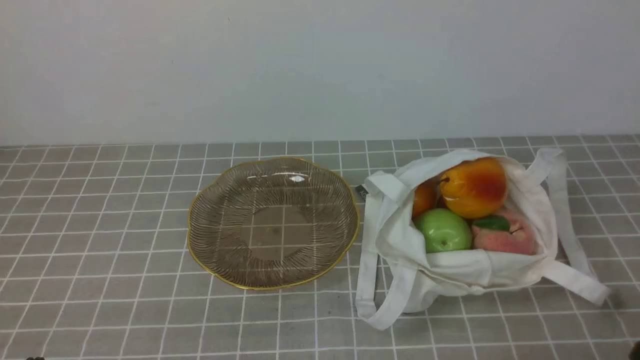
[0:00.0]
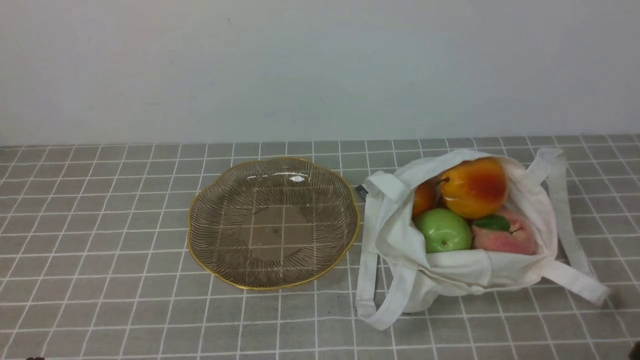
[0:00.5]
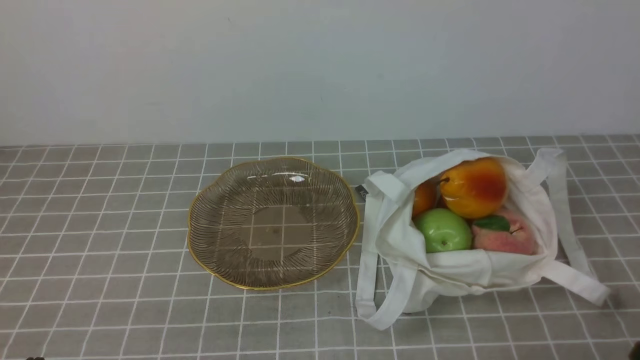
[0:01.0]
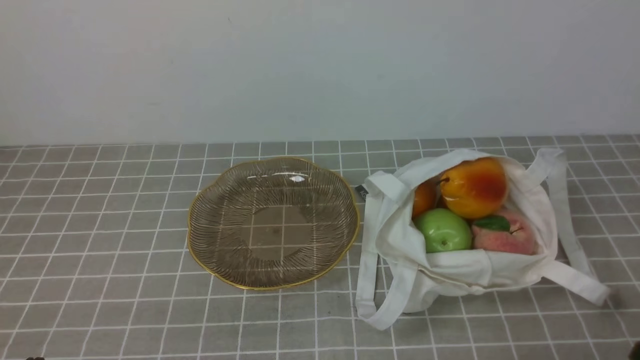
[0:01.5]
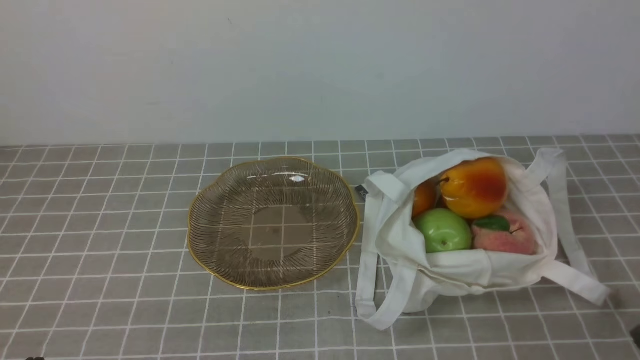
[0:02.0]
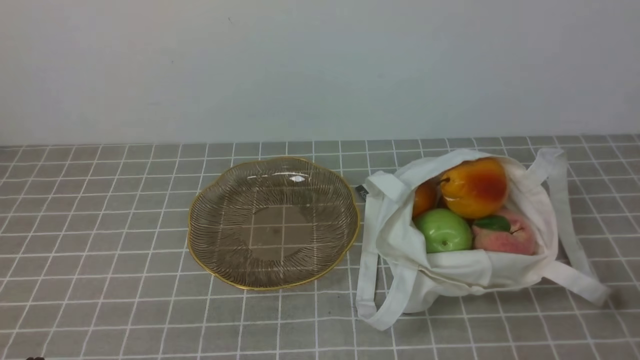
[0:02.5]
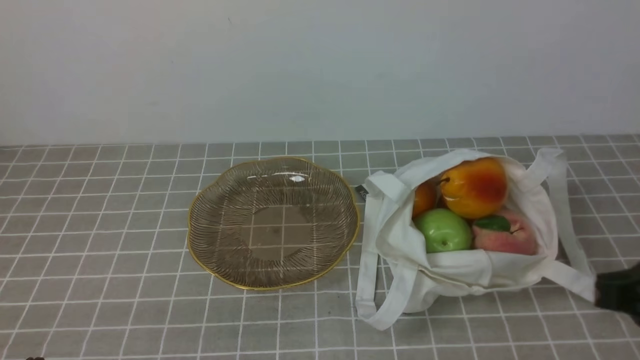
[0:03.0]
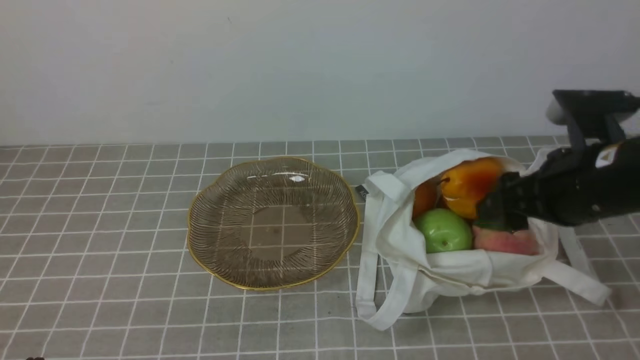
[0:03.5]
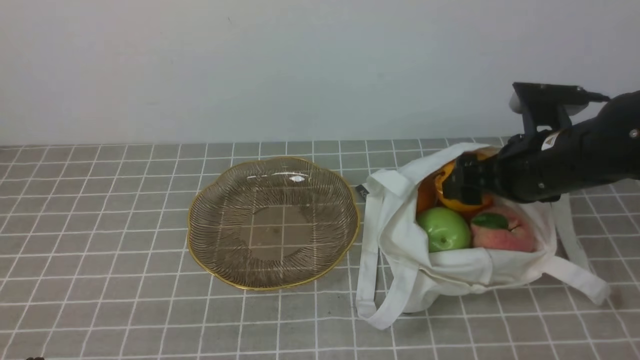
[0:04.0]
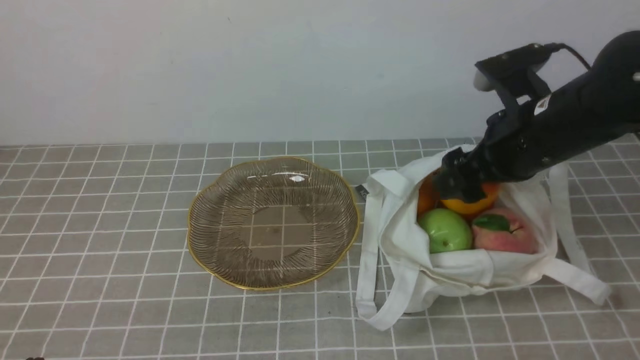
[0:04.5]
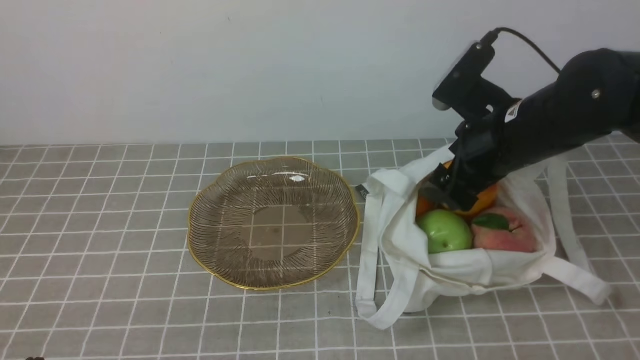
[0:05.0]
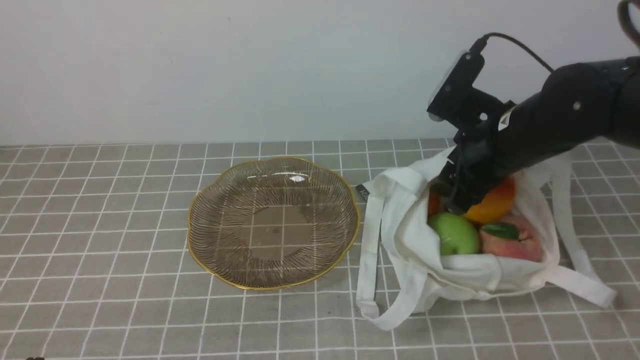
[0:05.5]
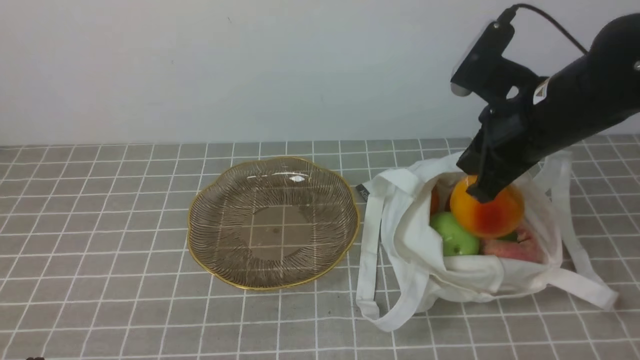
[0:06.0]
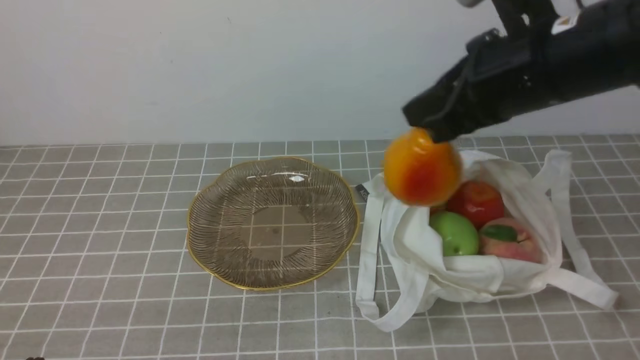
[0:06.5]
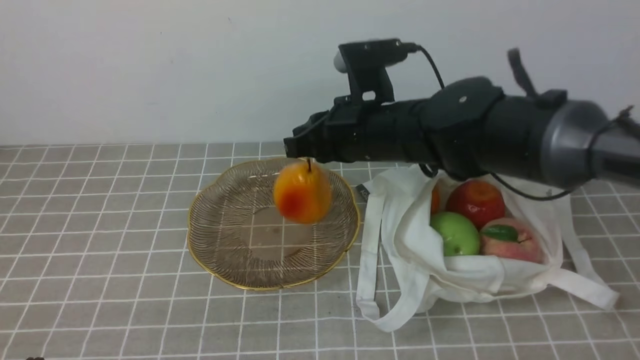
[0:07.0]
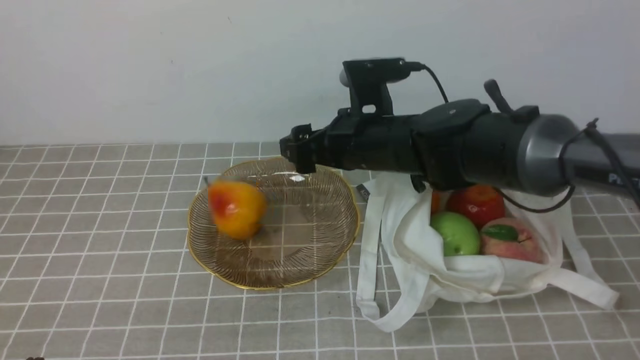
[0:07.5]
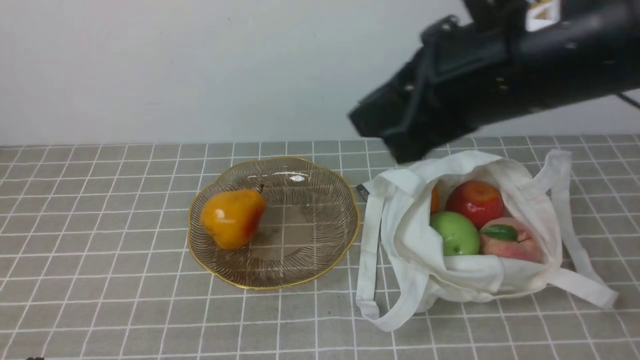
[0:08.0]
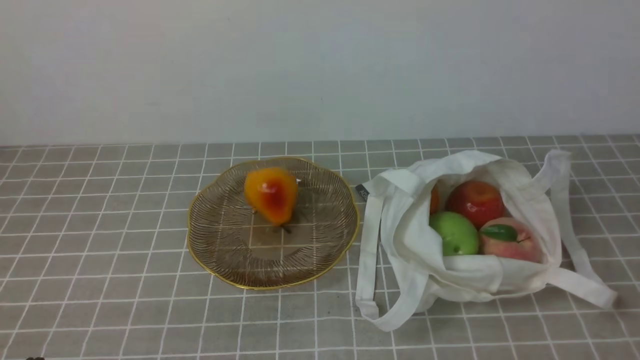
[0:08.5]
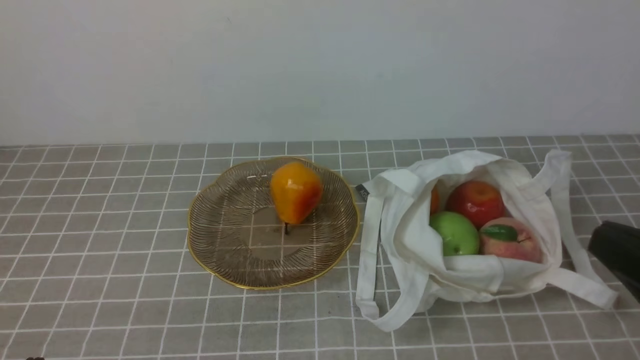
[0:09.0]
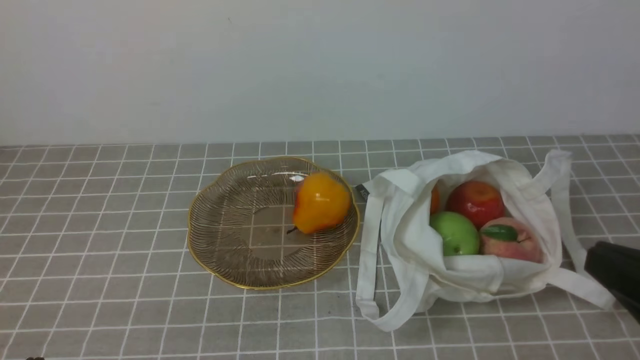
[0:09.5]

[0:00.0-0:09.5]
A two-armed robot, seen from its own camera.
Step, 0:00.0 to 0:06.0: use the right arm to grab a pear from the bag.
Step, 0:06.5 to 0:07.0: use the right arm to put the pear into the empty plate on the left.
0:02.0 to 0:04.0: The right gripper is displaced forward by approximately 25 cm, and opens.
0:04.0 to 0:05.5: The right gripper closes.
0:05.5 to 0:07.5: The right gripper is displaced to the left by about 15 cm, and opens its fingers.
0:07.5 to 0:09.5: The right gripper shifts roughly 35 cm backward and to the right, and closes up.

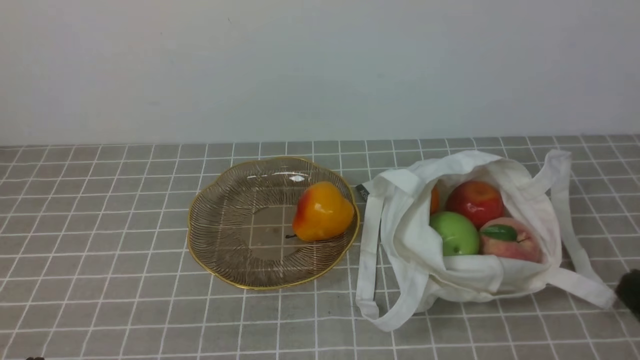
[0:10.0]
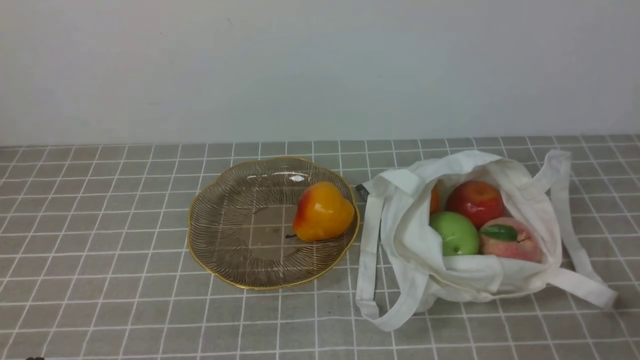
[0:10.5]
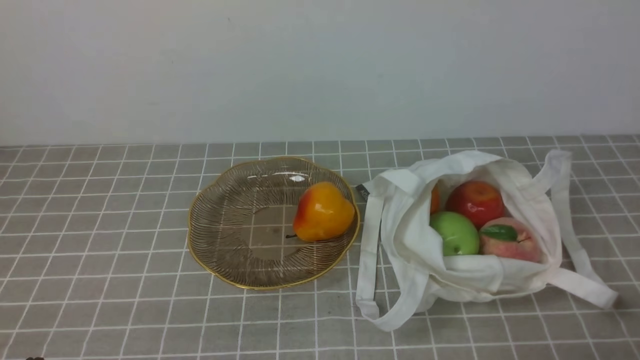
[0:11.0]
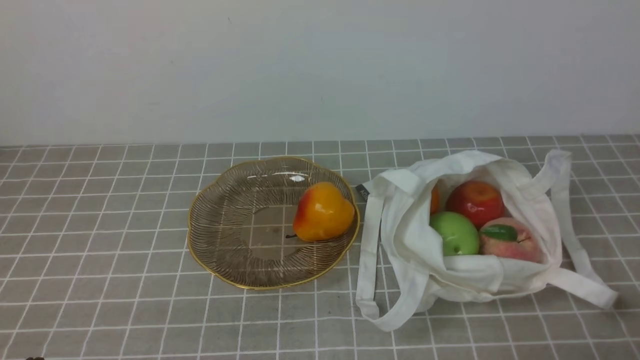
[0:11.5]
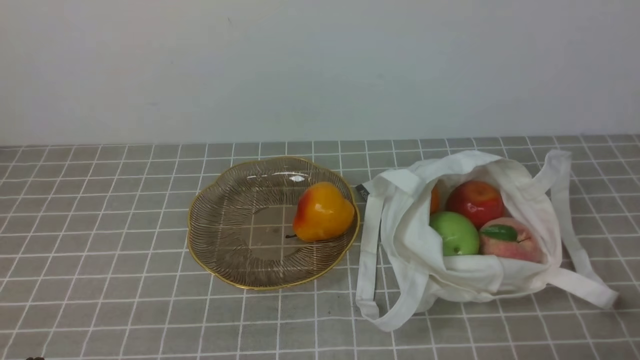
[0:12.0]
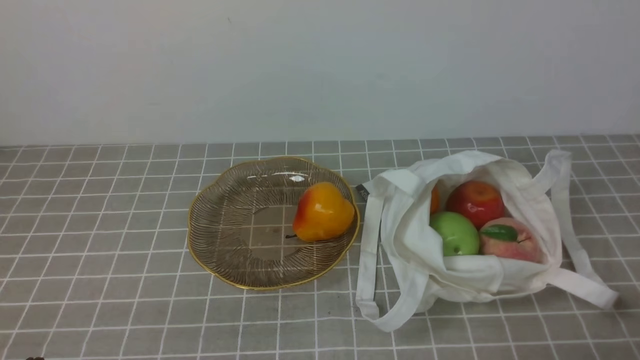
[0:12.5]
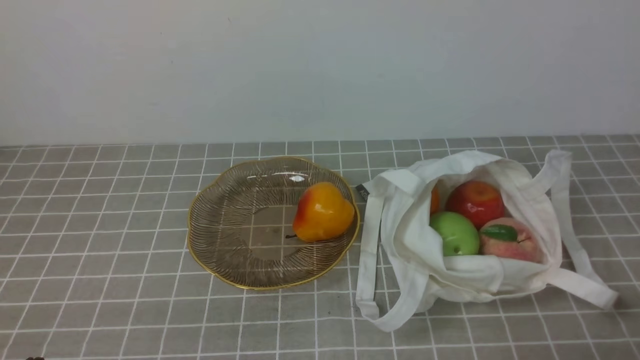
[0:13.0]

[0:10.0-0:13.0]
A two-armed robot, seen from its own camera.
0:11.5 to 0:13.0: Both grippers stay put.
